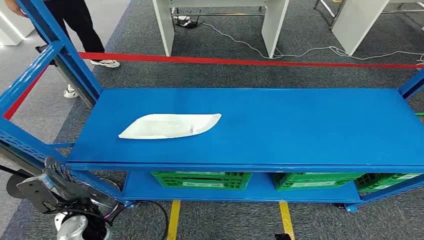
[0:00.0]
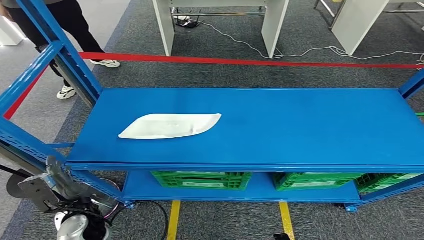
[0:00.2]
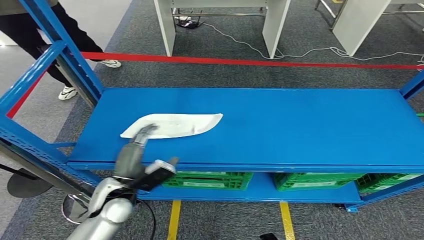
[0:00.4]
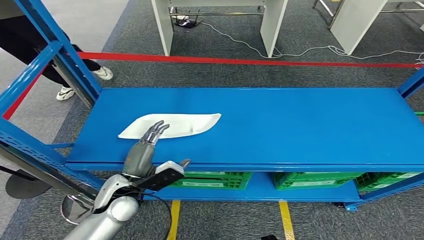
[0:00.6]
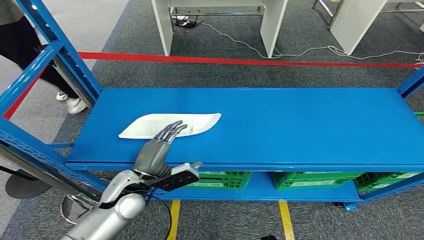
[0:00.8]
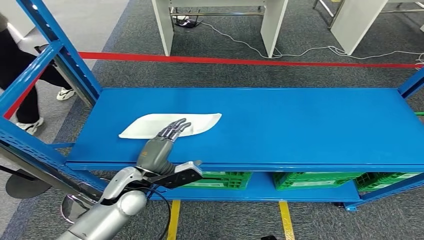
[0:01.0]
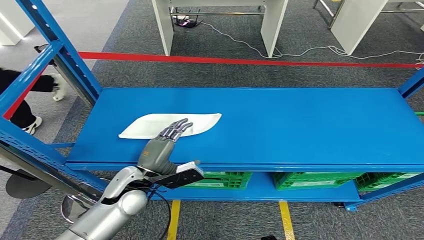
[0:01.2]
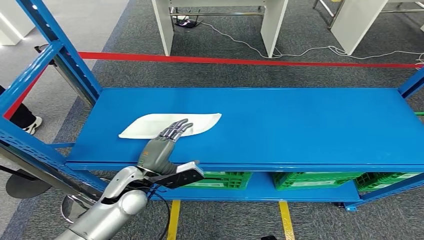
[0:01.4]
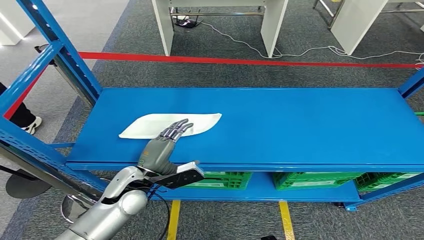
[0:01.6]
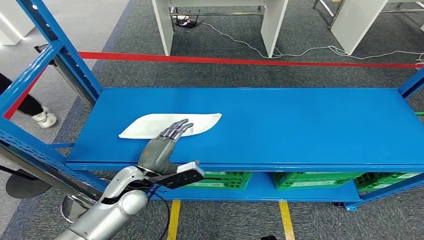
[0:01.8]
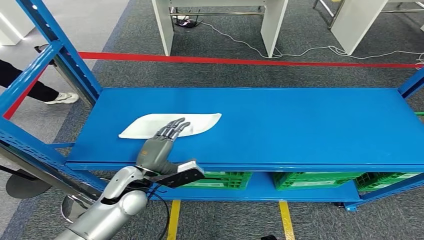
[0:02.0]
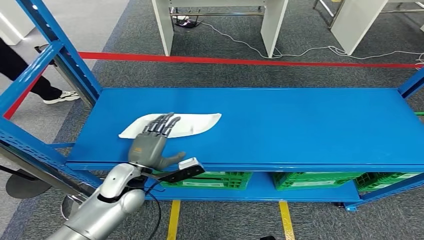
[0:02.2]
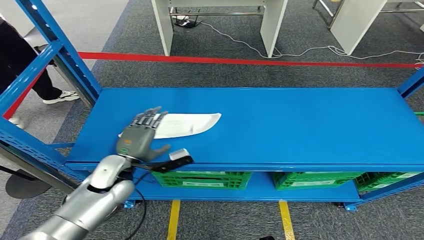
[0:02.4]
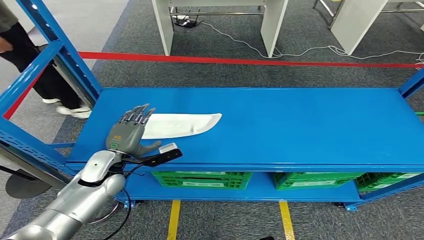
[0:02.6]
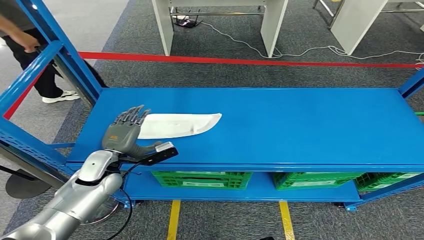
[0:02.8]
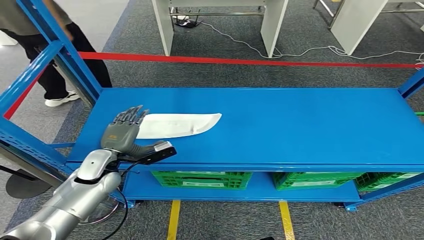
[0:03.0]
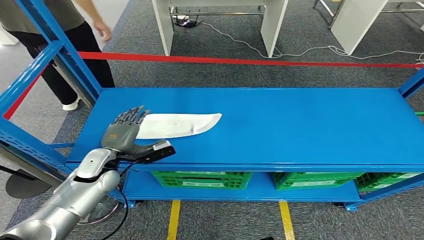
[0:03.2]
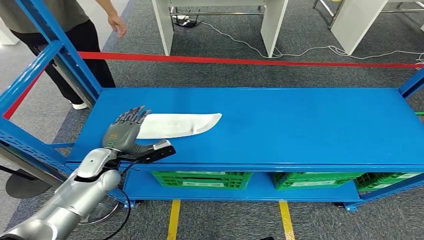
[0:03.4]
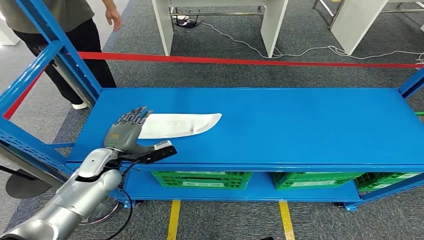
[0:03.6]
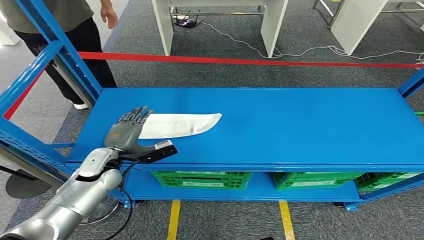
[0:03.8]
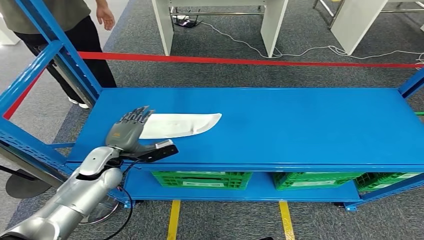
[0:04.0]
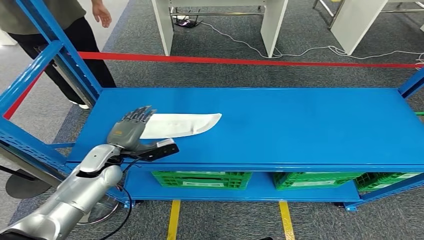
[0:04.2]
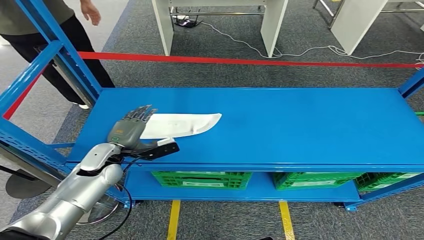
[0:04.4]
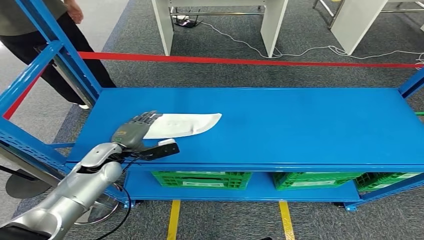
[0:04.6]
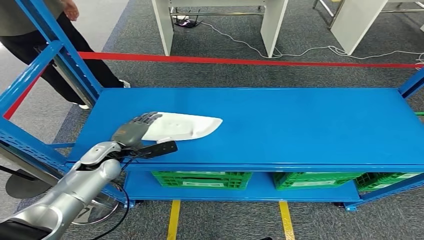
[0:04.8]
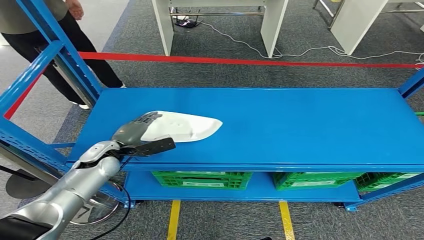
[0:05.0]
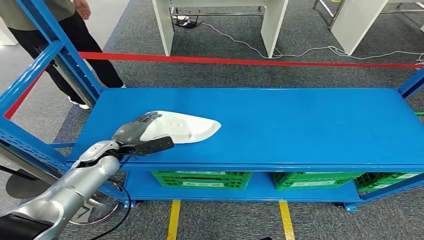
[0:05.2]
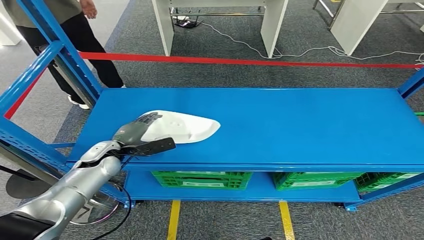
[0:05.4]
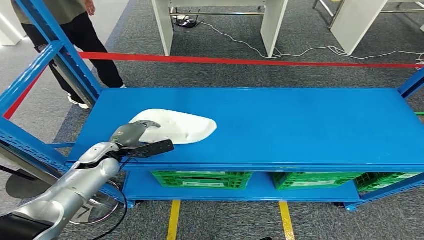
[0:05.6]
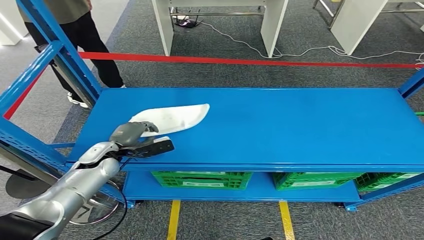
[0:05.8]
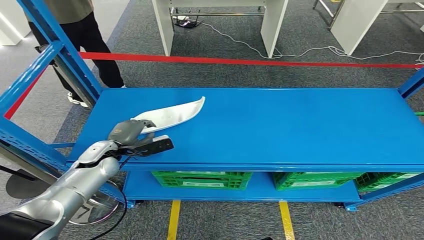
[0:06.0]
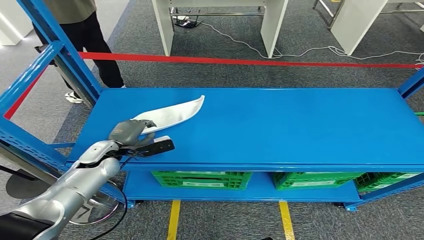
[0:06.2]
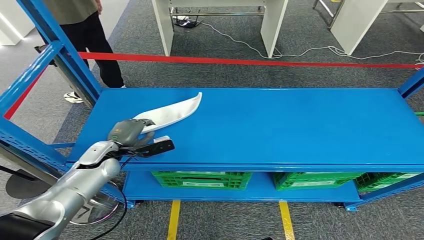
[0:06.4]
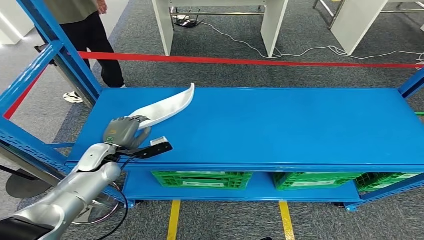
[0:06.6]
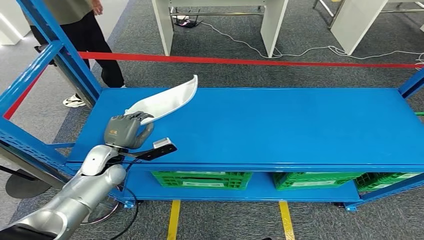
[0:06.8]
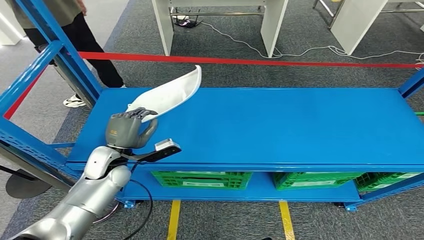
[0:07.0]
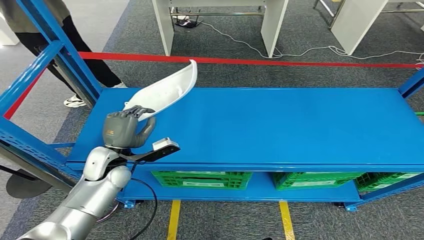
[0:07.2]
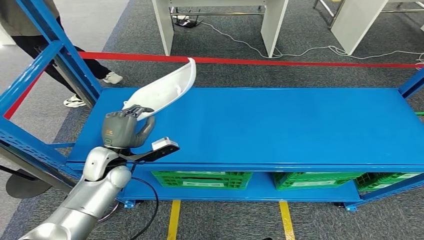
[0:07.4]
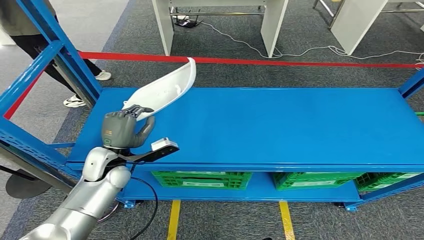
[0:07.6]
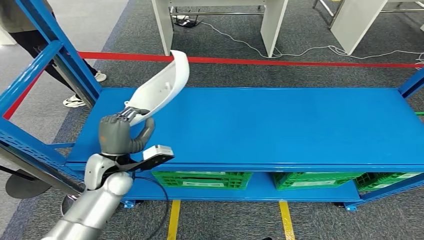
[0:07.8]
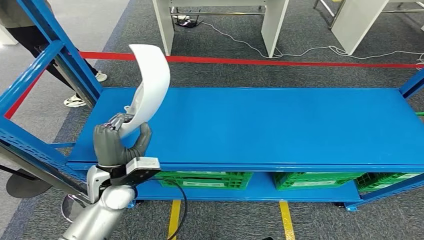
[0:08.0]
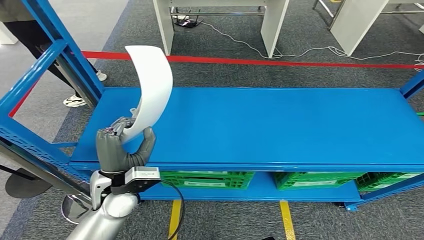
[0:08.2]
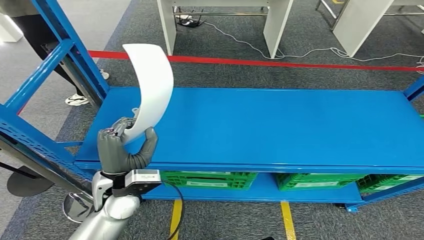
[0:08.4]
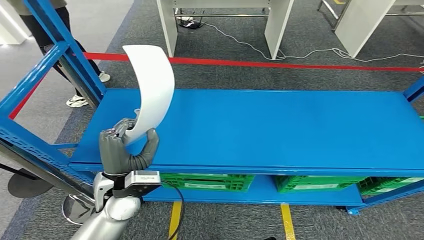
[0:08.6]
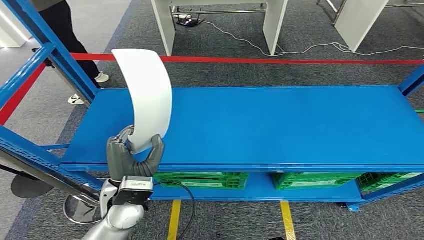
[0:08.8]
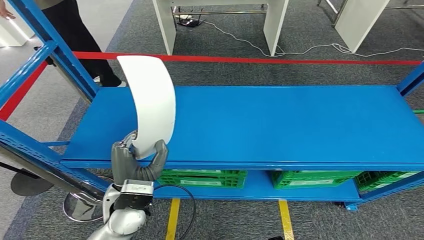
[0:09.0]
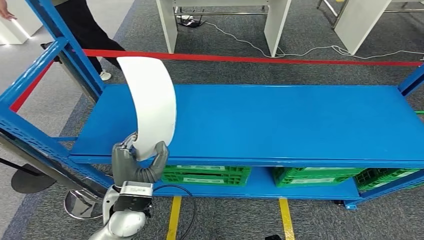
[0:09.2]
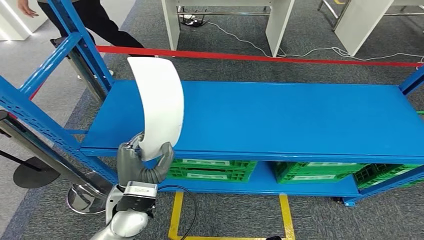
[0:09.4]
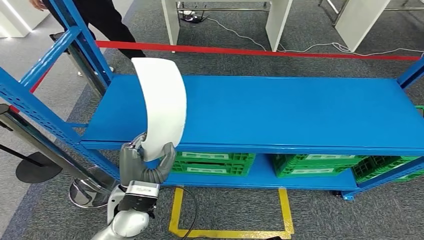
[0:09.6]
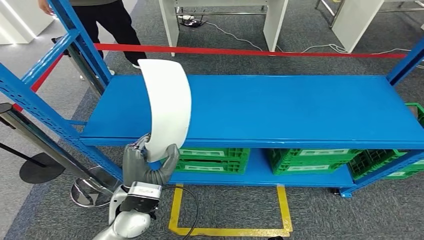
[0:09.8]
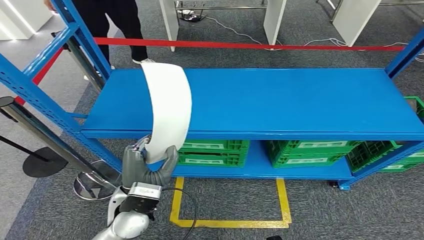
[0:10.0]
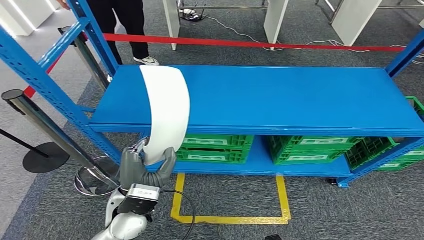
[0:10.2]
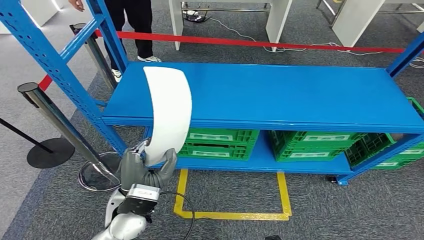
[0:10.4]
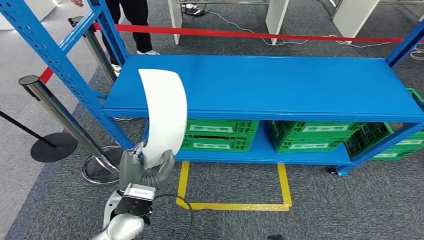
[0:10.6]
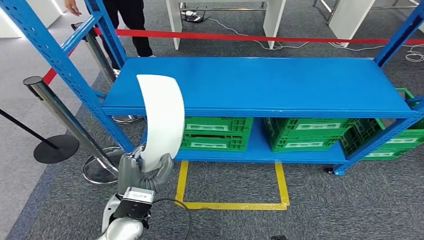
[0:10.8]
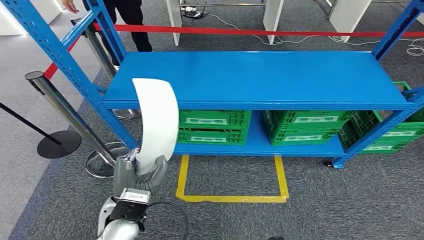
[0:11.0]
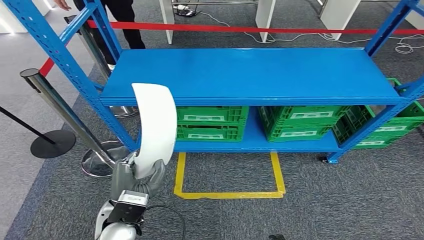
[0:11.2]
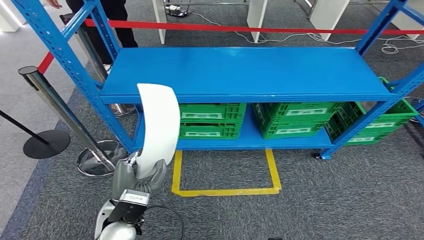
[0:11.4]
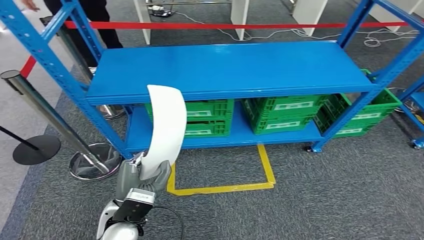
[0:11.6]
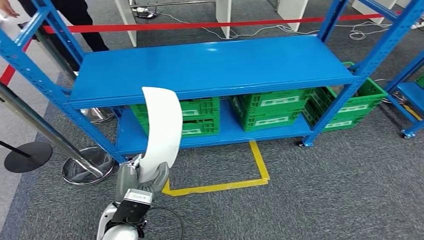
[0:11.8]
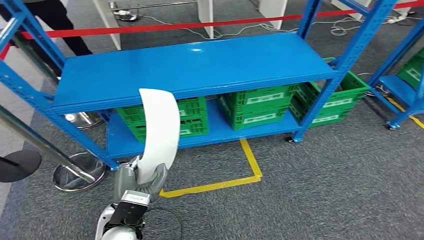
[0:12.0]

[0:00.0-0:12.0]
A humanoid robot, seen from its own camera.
Step, 0:00.0 to 0:09.2: Pick up the small component from the shelf.
0:01.6 to 0:03.0: The left hand goes approximately 10 cm to the left and forward.
0:03.0 to 0:04.4: The hands make only small movements.
0:04.4 to 0:06.0: The hands move only a little.
0:06.0 to 0:07.6: The left hand ends up about 5 cm from where it was.

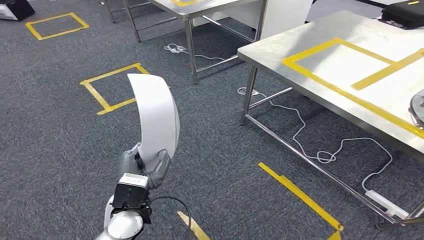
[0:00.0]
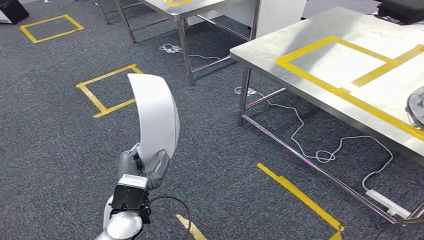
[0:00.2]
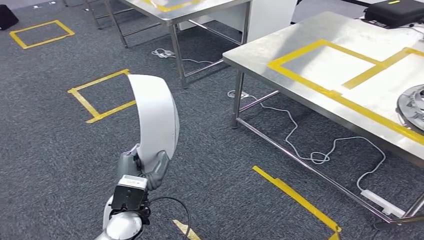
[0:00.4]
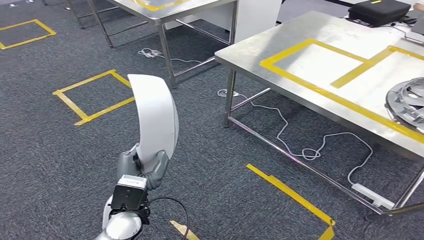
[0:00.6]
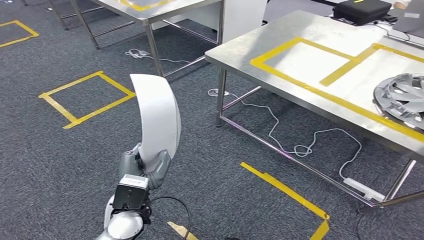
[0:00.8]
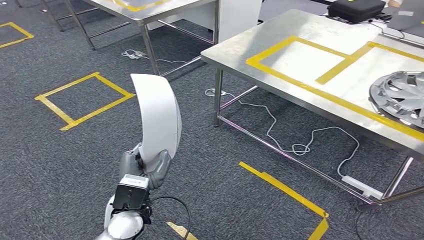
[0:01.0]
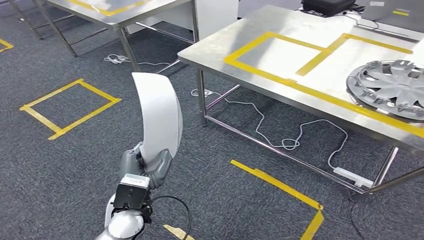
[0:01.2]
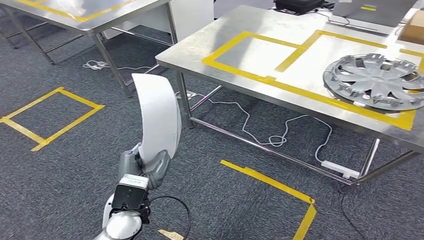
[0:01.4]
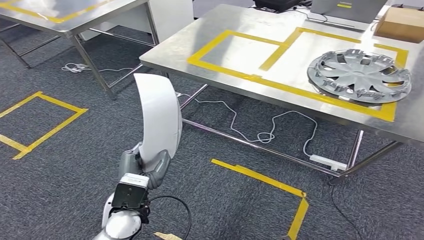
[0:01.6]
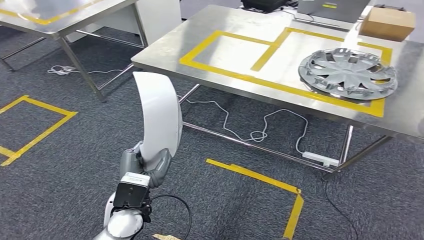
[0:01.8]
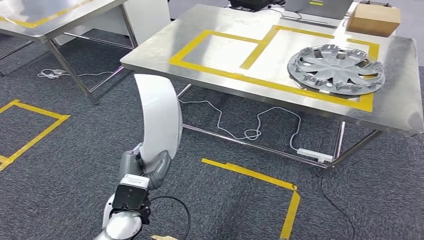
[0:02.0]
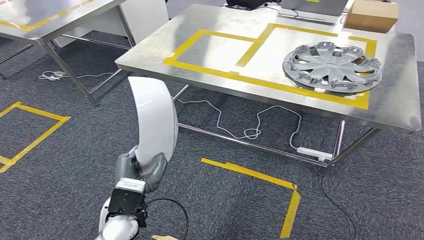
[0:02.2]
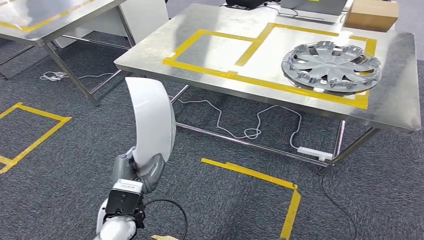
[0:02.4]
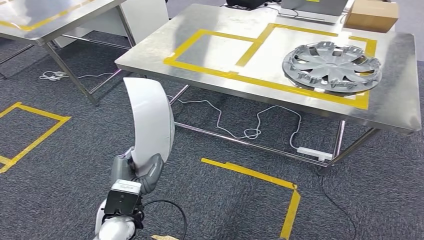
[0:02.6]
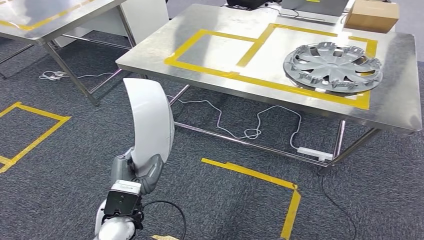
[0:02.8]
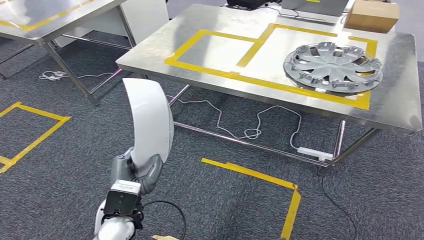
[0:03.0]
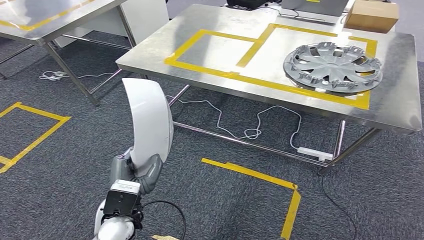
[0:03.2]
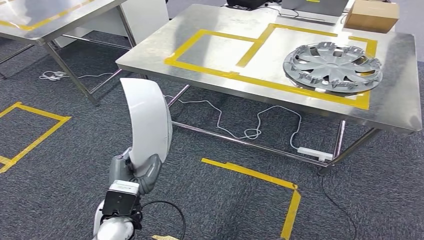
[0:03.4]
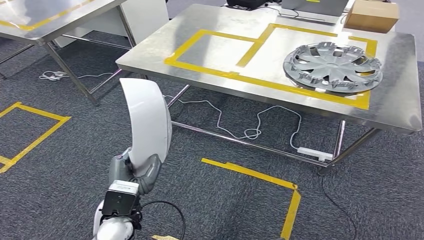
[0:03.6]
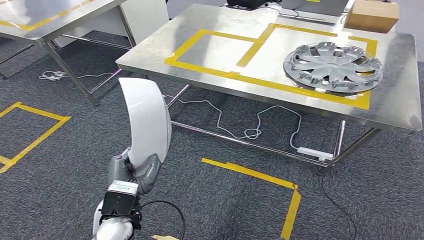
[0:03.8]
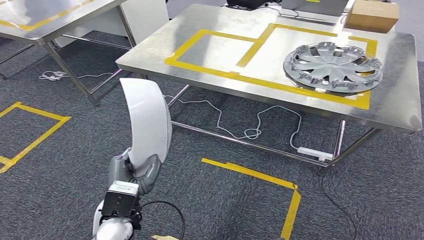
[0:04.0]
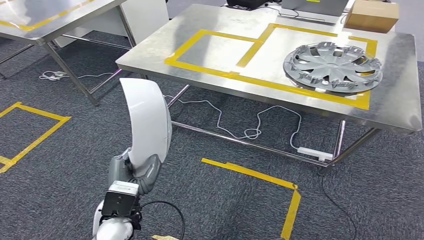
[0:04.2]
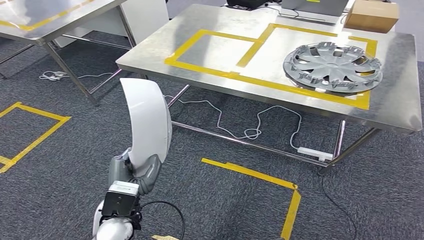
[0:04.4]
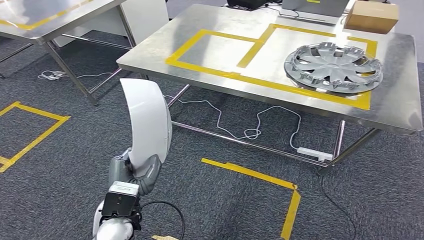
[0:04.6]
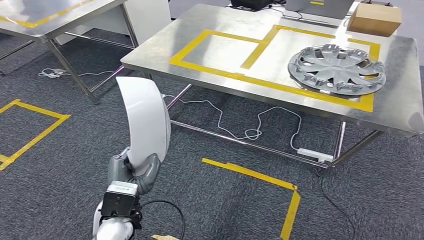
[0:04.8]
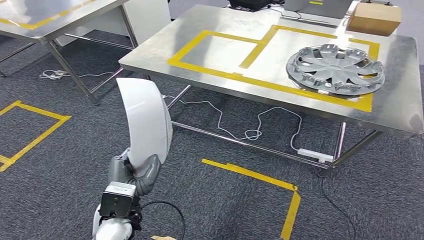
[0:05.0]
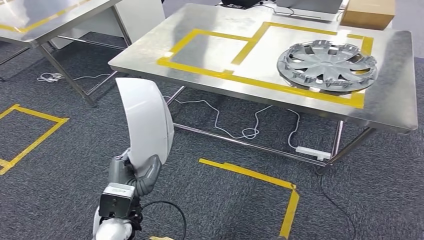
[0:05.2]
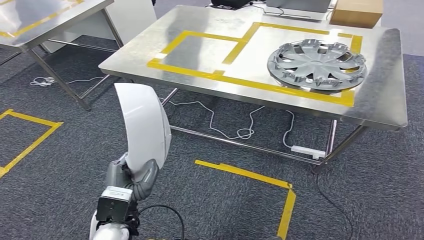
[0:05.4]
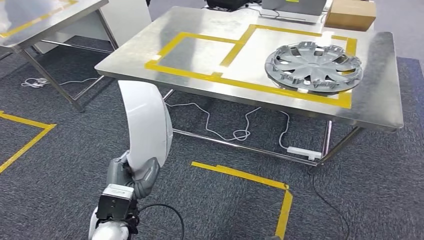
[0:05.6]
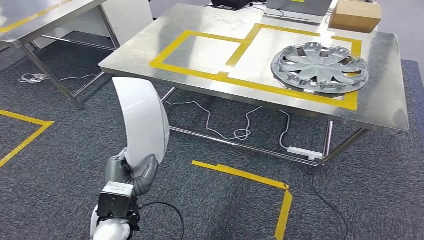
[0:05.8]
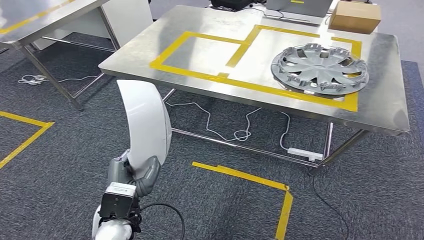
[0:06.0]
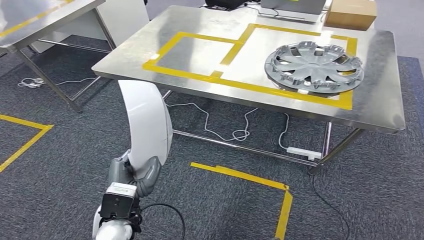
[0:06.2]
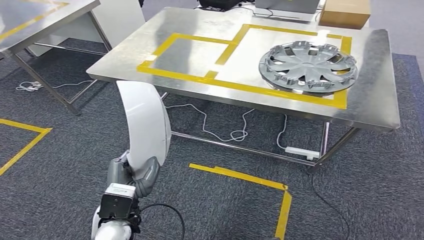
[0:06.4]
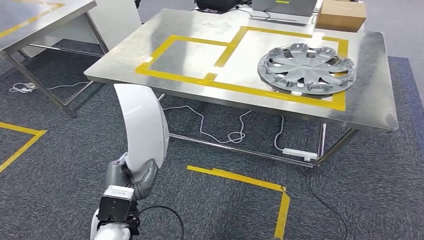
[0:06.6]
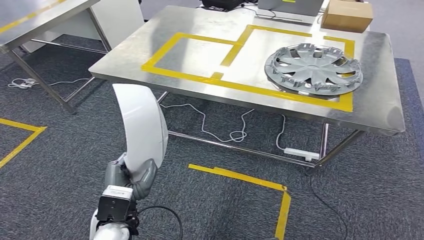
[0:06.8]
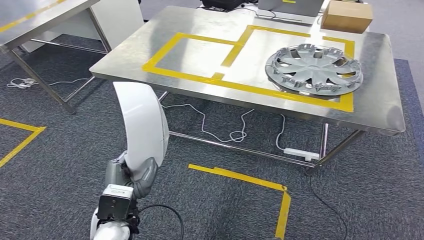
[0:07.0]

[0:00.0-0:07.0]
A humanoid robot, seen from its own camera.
Step, 0:00.0 to 0:03.4: Move the small component to the workbench.
0:02.8 to 0:04.2: The two hands keep their place.
